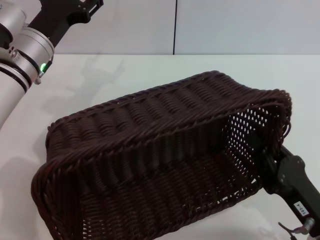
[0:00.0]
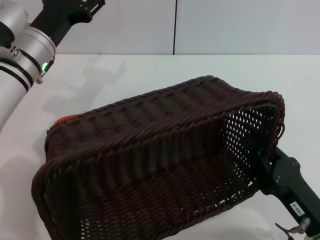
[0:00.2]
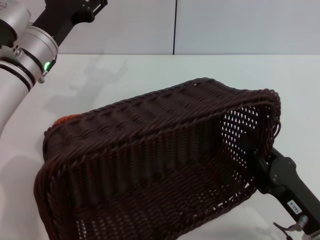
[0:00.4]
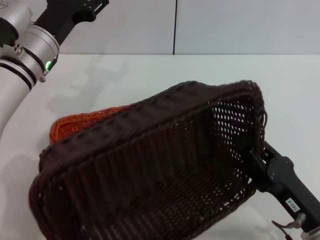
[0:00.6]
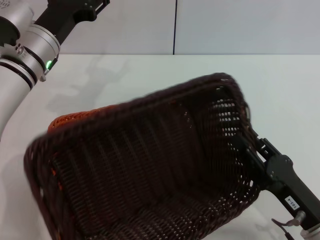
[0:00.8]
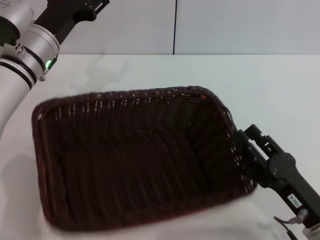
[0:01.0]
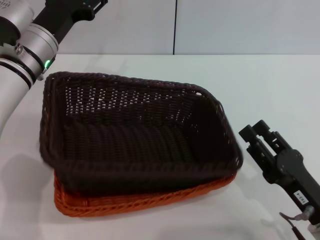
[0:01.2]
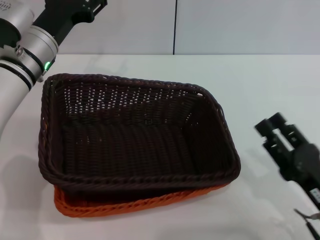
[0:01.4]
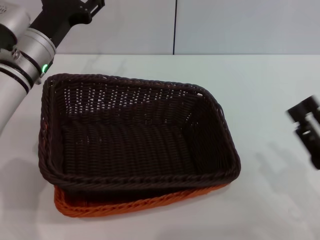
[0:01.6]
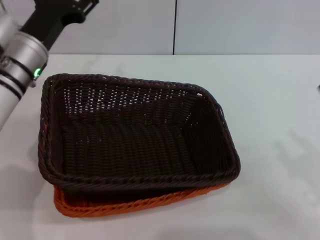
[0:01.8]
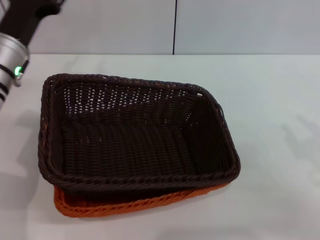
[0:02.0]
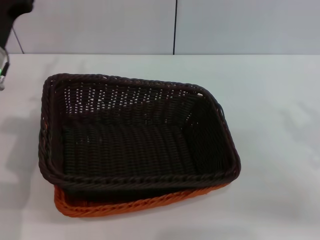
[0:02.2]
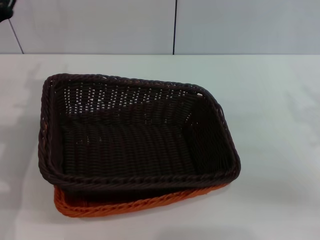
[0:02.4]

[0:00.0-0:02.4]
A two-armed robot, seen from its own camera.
0:00.0 to 0:01.2: The right gripper opens up.
0:01.2 to 0:02.4: The left gripper shifts approximately 5 cm to the left. The right gripper shifts some 15 cm forward, to the right and upward.
